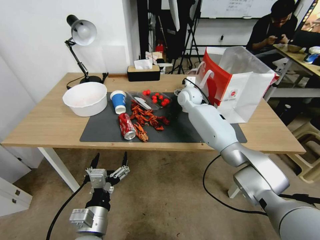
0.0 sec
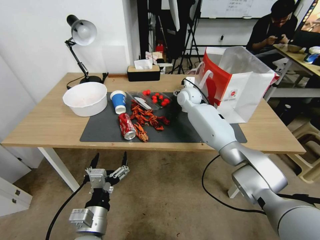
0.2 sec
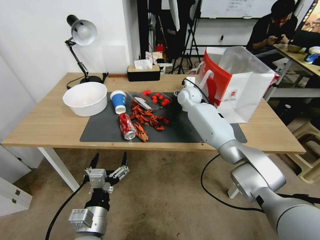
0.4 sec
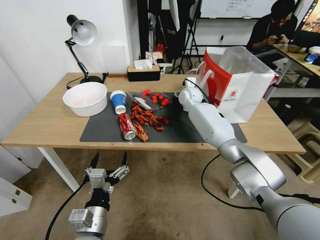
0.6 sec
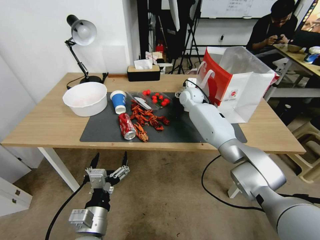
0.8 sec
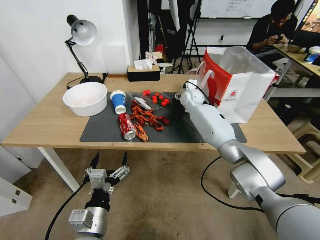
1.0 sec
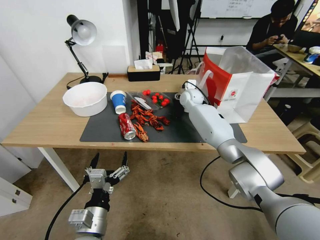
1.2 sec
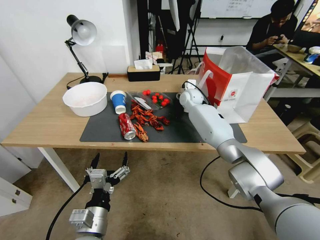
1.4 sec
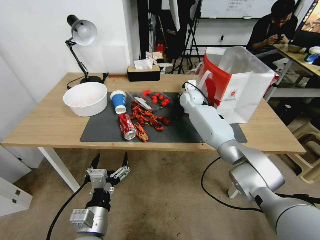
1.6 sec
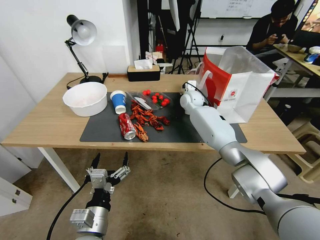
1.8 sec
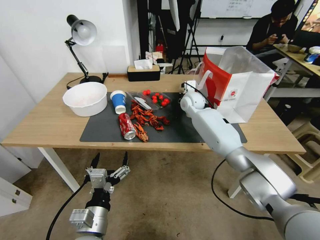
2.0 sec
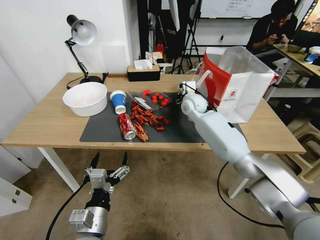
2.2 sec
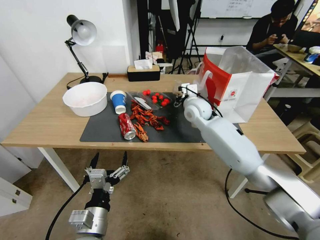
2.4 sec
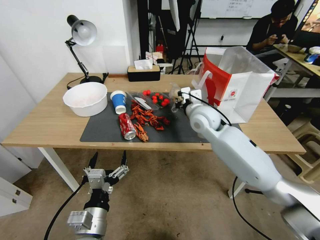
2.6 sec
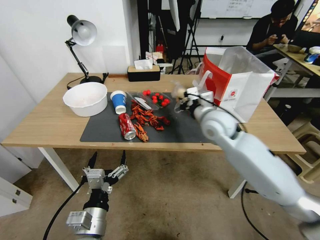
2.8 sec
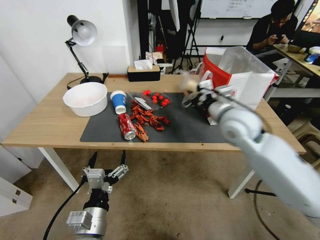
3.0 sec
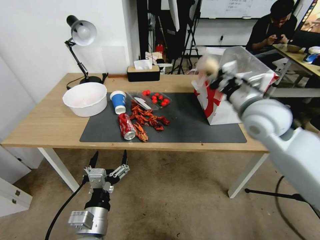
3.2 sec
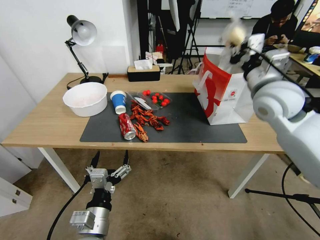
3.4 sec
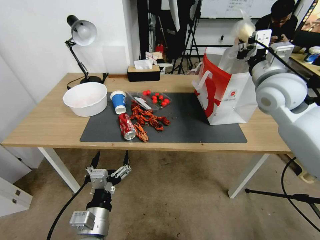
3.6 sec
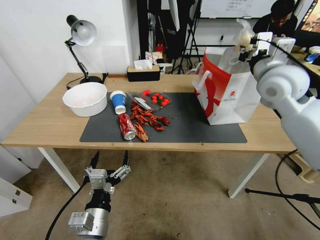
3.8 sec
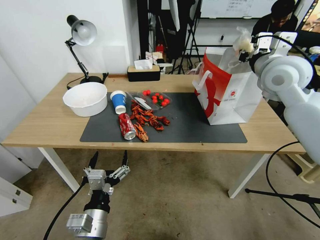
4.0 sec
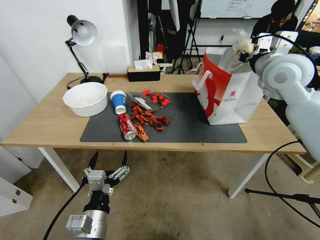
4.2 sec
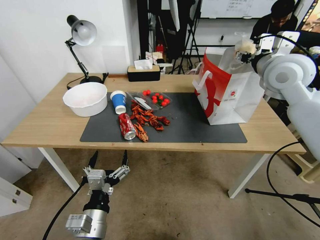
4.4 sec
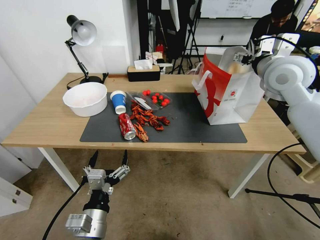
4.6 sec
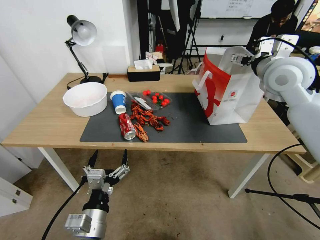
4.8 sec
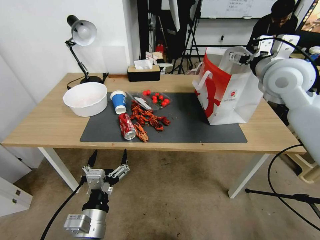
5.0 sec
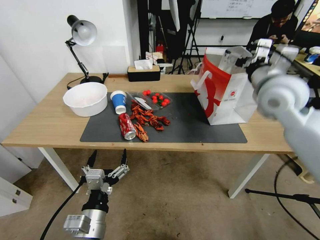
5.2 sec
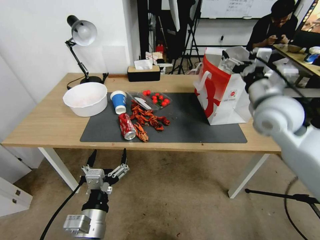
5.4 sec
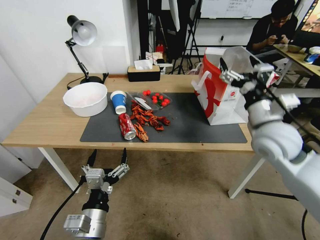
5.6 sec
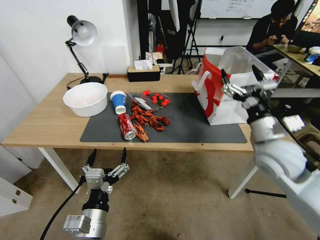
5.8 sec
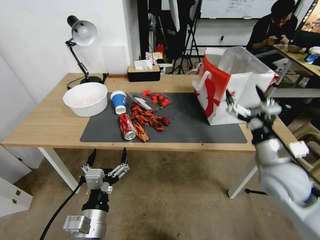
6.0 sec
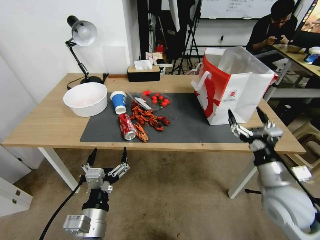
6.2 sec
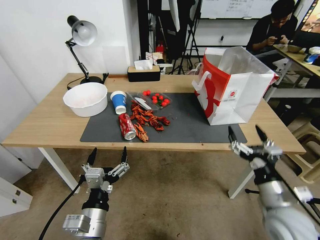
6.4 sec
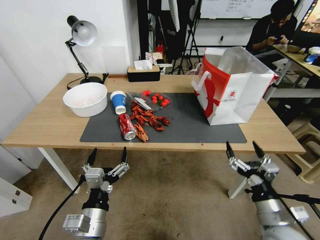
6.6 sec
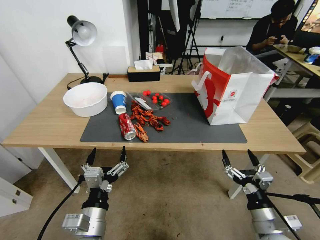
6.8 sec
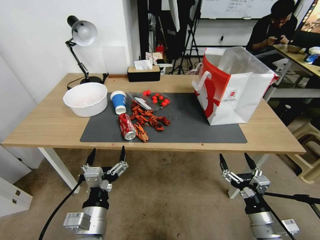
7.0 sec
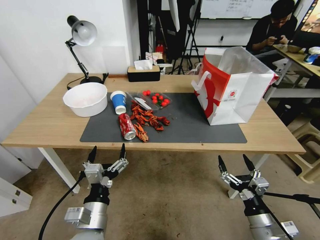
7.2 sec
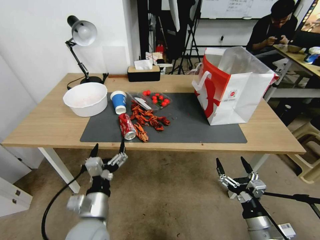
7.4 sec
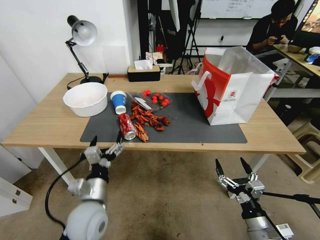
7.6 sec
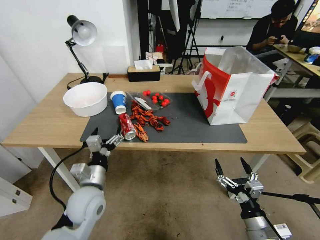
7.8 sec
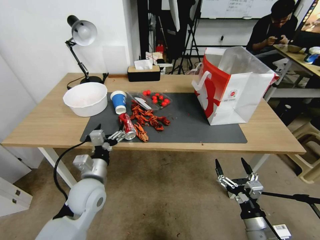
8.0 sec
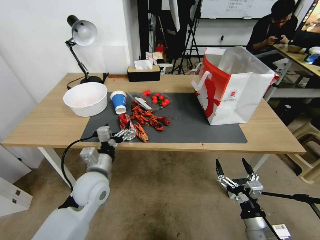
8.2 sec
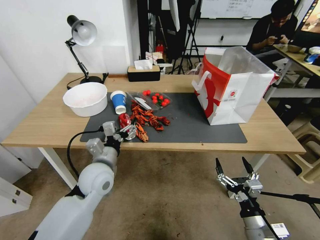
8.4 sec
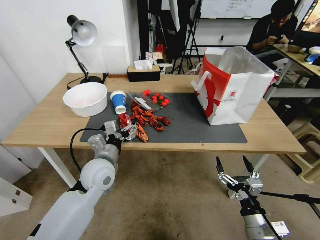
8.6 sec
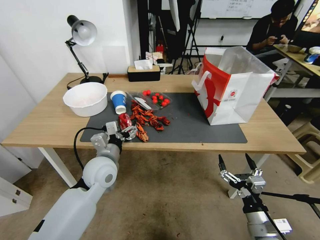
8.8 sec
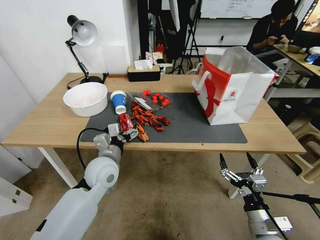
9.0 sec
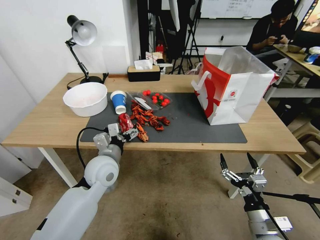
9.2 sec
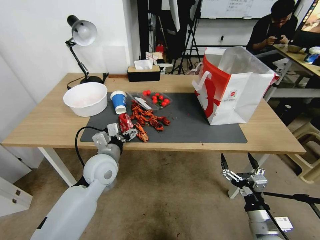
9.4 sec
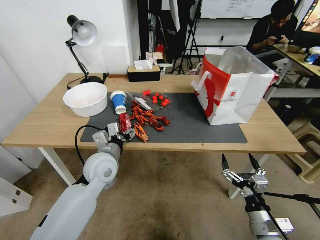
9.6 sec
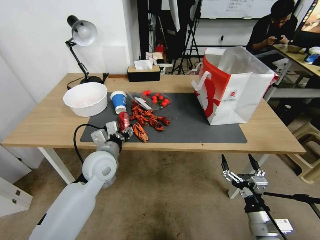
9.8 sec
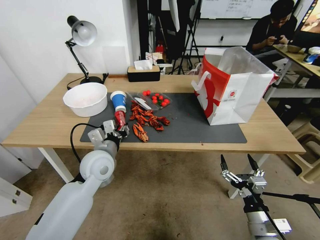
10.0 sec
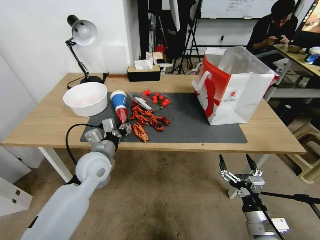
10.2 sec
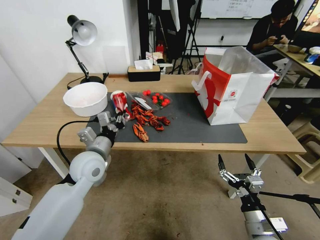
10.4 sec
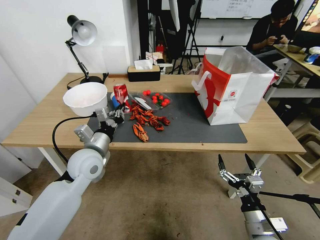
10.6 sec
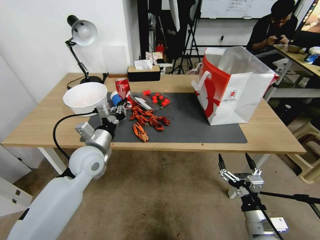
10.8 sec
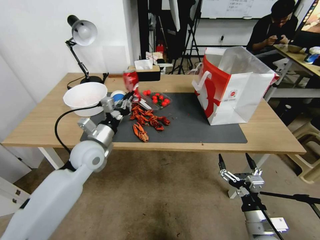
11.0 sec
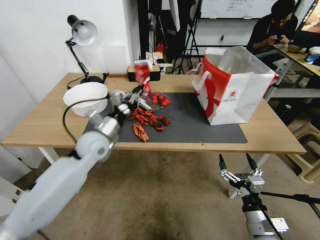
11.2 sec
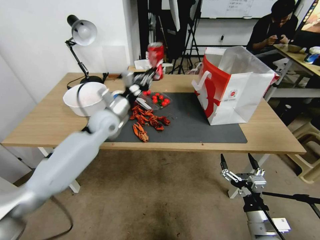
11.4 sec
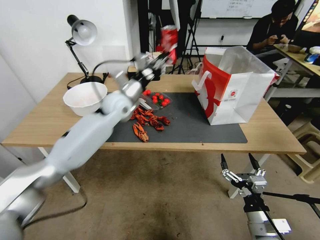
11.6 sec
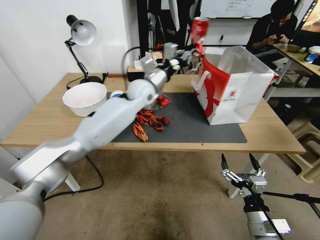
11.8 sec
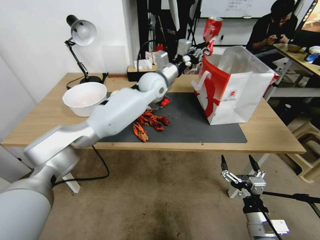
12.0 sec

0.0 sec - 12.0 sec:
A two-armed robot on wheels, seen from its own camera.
0.0 sec - 1.6 sec: The right gripper closes up.
1.6 sec - 3.0 sec: The right gripper is displaced backward by roughly 20 cm, and closes its fingers.
3.0 sec - 4.4 sec: The right gripper is displaced upward and to the right by some 20 cm, and opens up.
4.4 sec - 6.0 sec: The right gripper is displaced downward and backward by roughly 30 cm, and opens up.
6.0 sec - 7.6 sec: The right gripper heads downward and backward, covering roughly 20 cm. Meanwhile the left gripper goes about 10 cm forward.
7.6 sec - 9.0 sec: The left gripper travels forward by about 10 cm.
9.0 sec - 10.4 sec: The left gripper closes up.
10.4 sec - 12.0 sec: The left gripper heads forward, to the right and upward, covering some 35 cm.

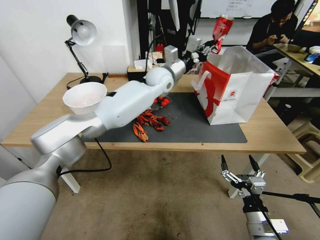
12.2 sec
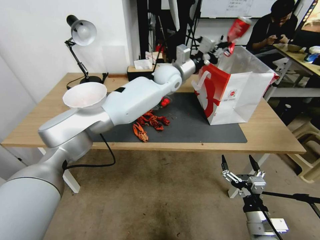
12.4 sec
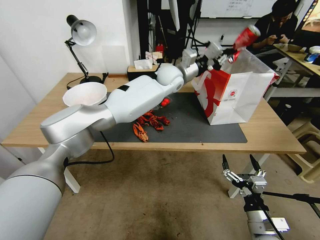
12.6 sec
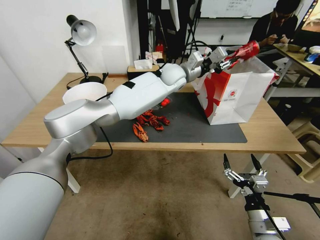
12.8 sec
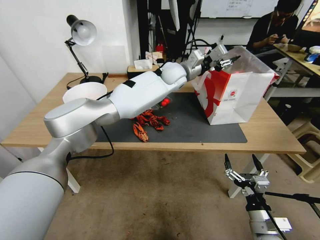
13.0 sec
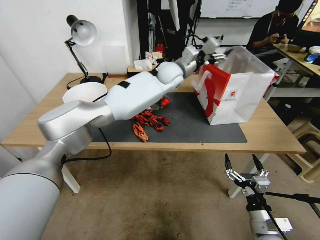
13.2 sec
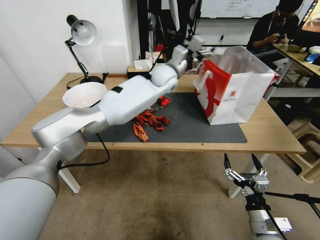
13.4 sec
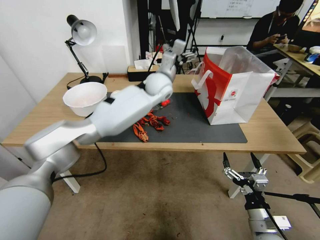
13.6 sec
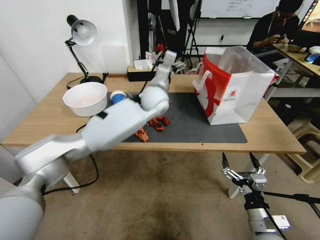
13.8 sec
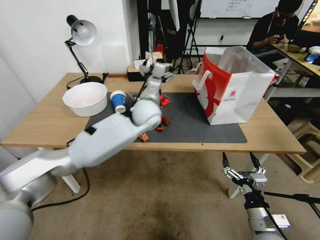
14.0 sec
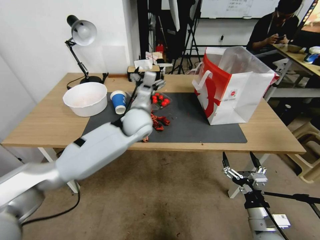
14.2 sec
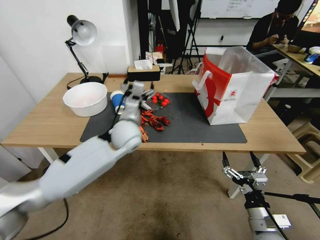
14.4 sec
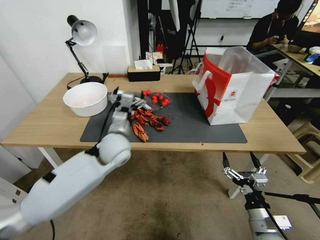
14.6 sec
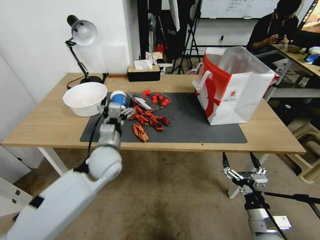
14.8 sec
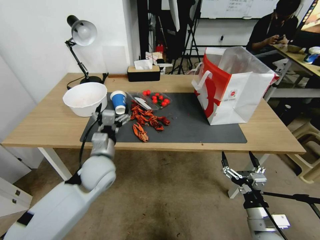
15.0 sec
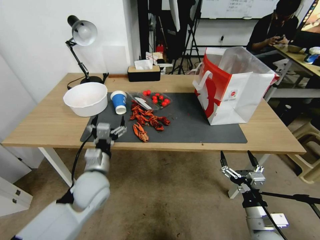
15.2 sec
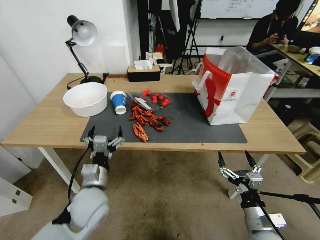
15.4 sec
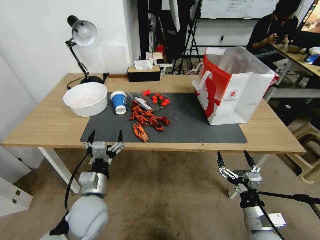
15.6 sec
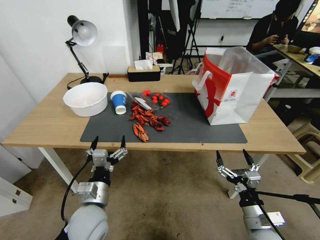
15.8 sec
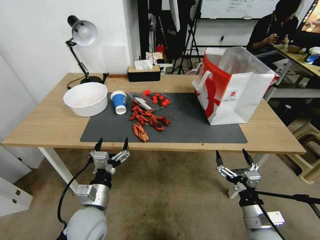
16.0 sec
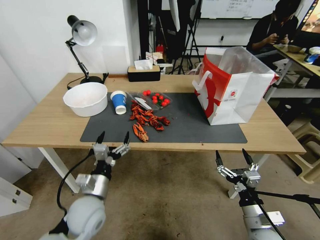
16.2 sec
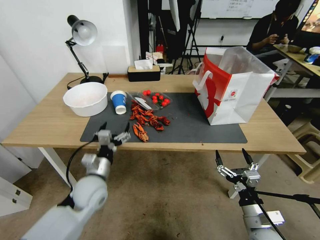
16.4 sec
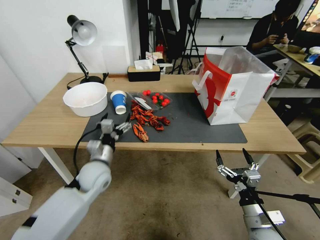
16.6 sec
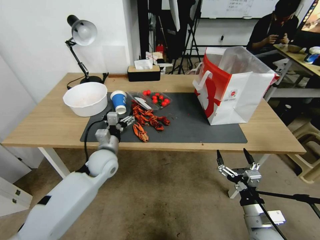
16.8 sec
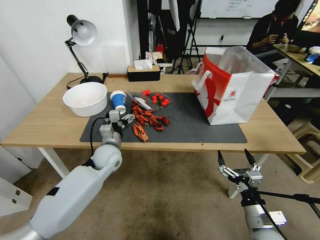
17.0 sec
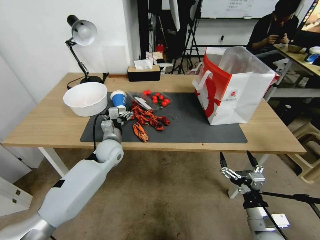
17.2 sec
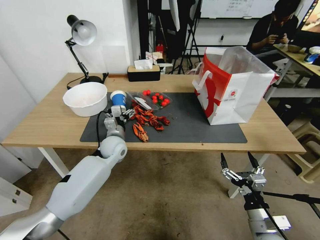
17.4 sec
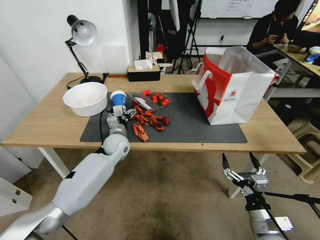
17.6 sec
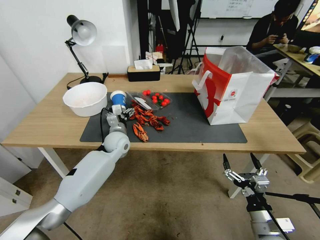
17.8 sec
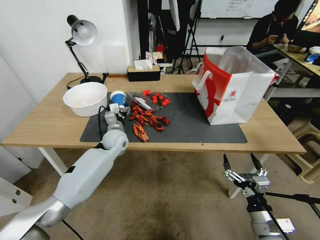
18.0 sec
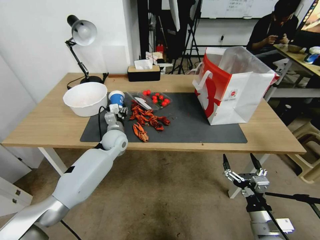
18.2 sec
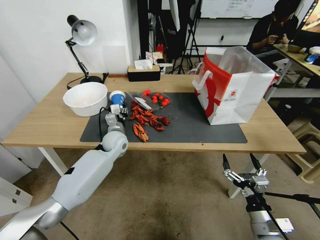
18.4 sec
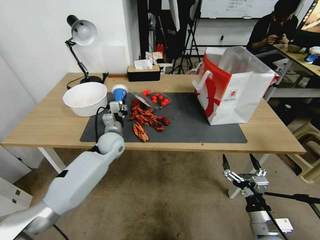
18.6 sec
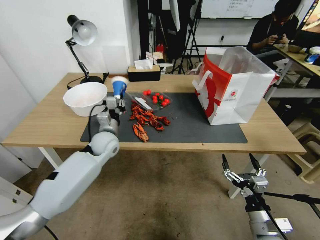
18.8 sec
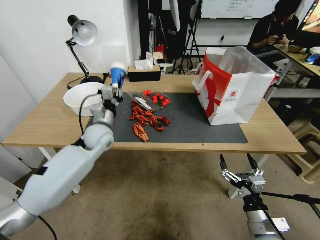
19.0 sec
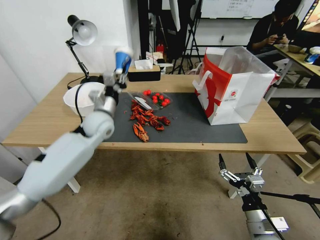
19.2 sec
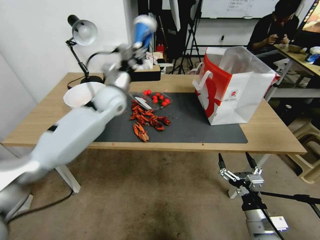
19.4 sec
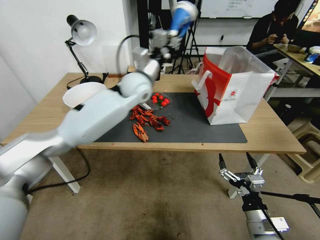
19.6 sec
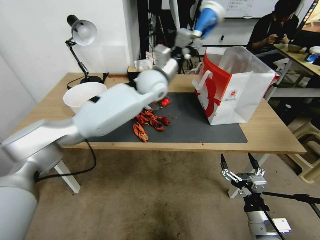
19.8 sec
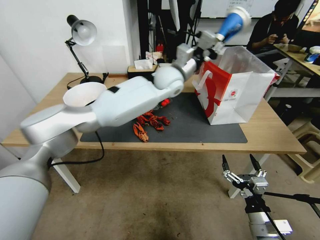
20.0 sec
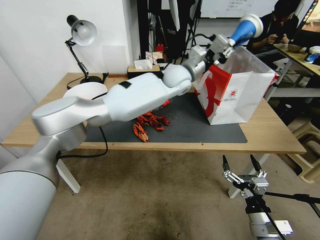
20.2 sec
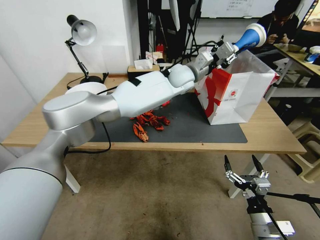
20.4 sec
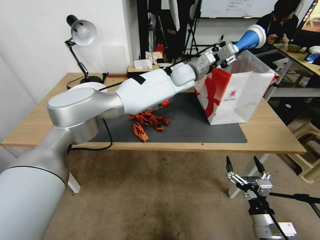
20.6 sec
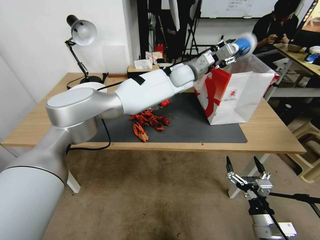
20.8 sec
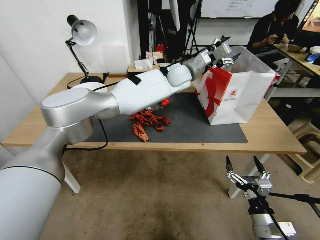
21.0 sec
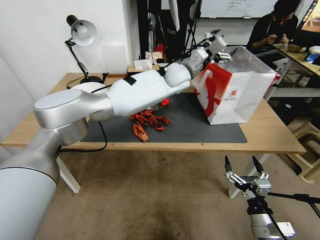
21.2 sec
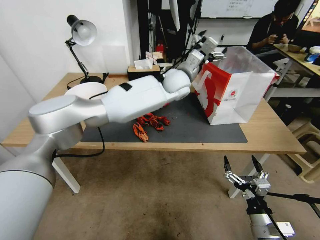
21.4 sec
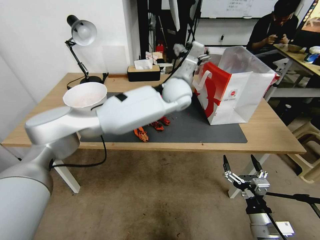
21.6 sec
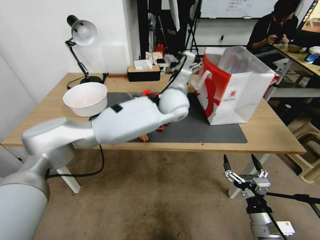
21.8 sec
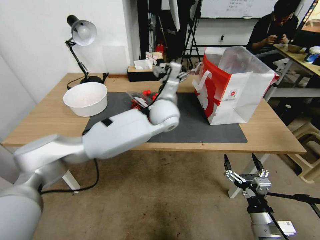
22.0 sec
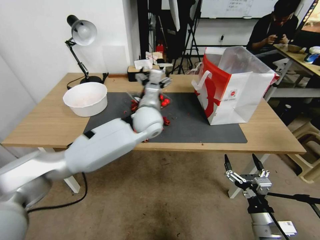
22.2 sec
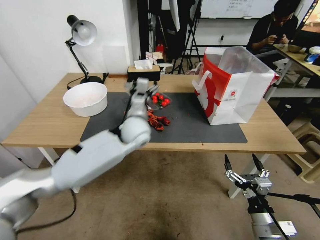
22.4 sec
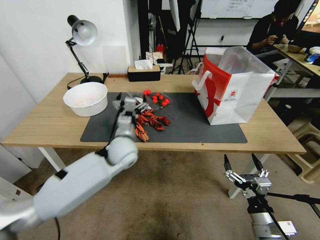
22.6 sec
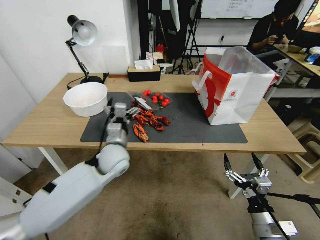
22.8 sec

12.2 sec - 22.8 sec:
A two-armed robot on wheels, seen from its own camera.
12.2 sec - 13.8 sec: The left gripper is displaced backward by about 5 cm, and opens.
13.8 sec - 15.2 sec: The left gripper goes about 35 cm backward, to the left and downward.
15.2 sec - 16.8 sec: The left gripper shifts approximately 10 cm forward.
16.8 sec - 18.2 sec: The left gripper goes some 10 cm forward, and closes up.
18.2 sec - 19.8 sec: The left gripper is displaced upward and to the right by some 25 cm, and closes its fingers.
19.8 sec - 21.2 sec: The left gripper shifts about 15 cm to the right and forward, and opens up.
21.2 sec - 22.8 sec: The left gripper goes approximately 35 cm backward, to the left and downward.
